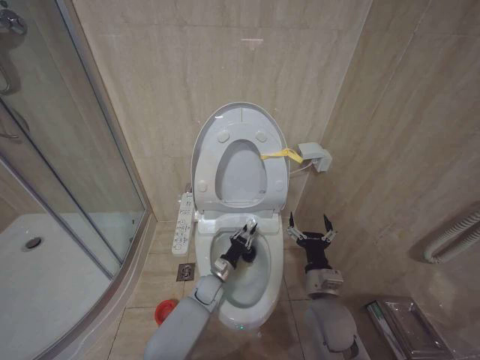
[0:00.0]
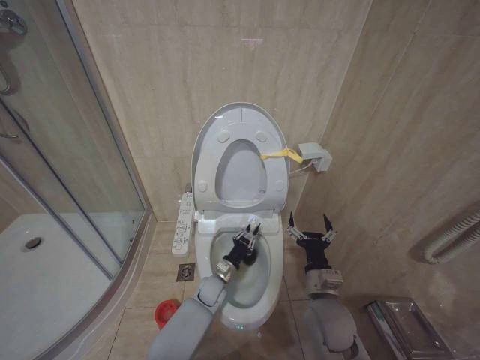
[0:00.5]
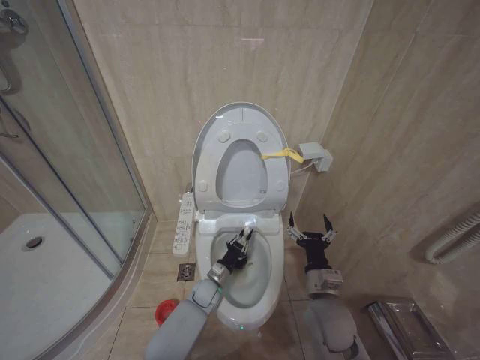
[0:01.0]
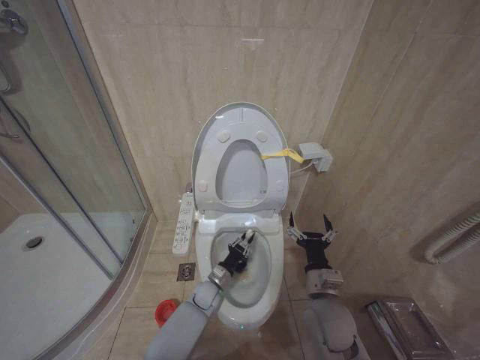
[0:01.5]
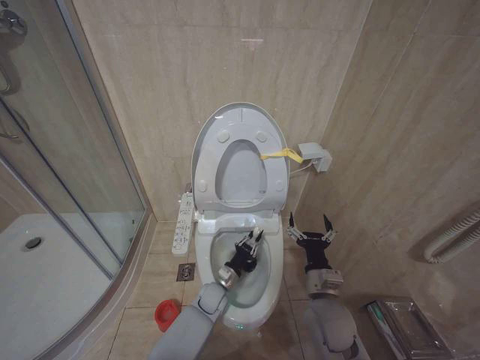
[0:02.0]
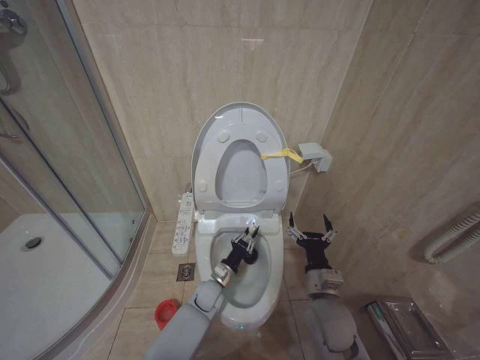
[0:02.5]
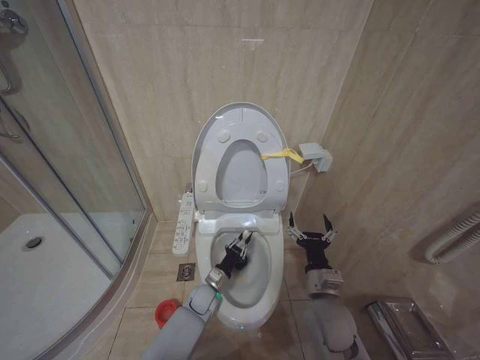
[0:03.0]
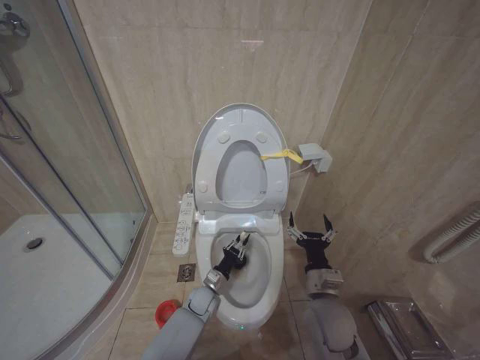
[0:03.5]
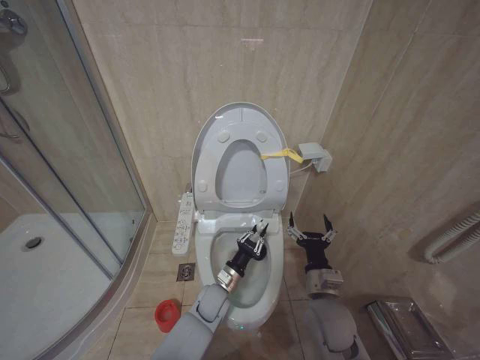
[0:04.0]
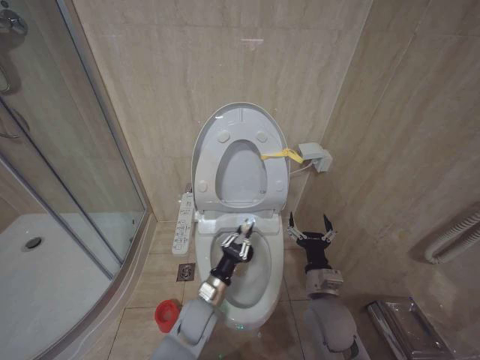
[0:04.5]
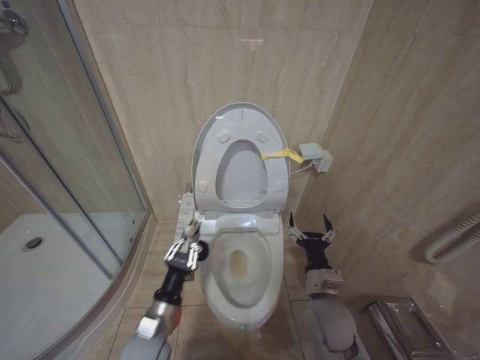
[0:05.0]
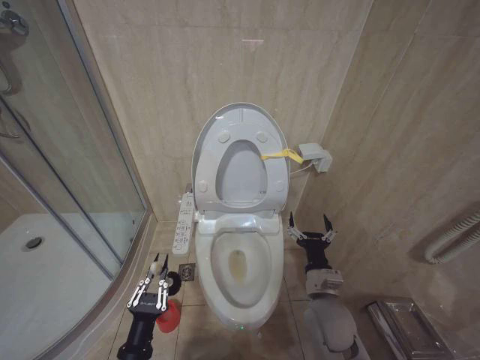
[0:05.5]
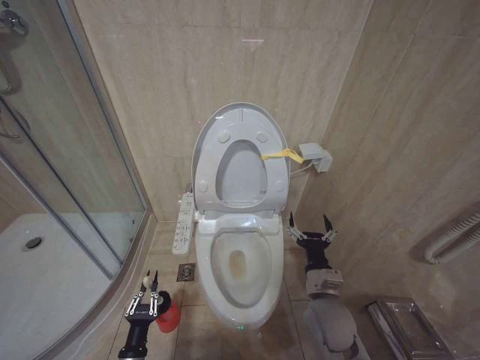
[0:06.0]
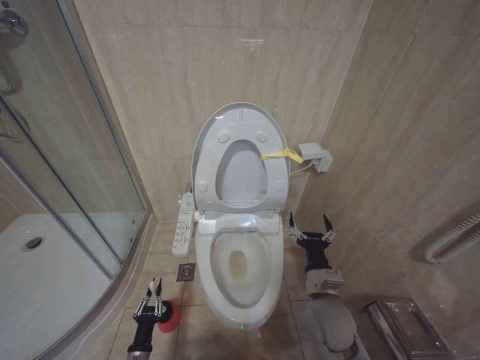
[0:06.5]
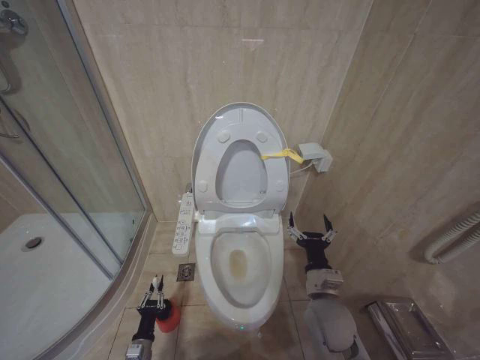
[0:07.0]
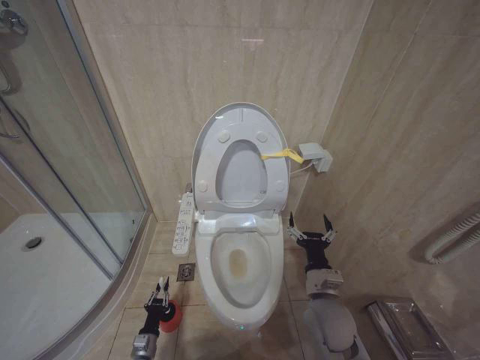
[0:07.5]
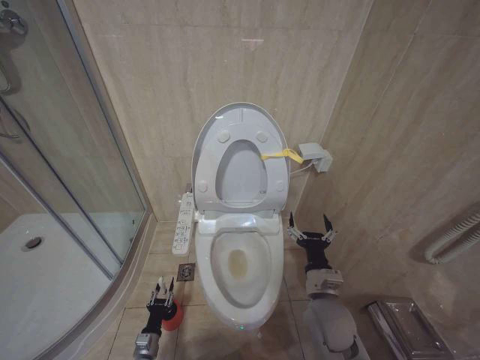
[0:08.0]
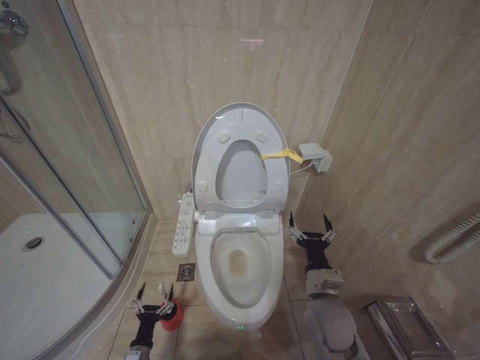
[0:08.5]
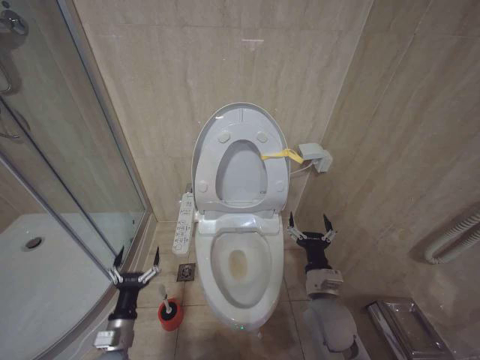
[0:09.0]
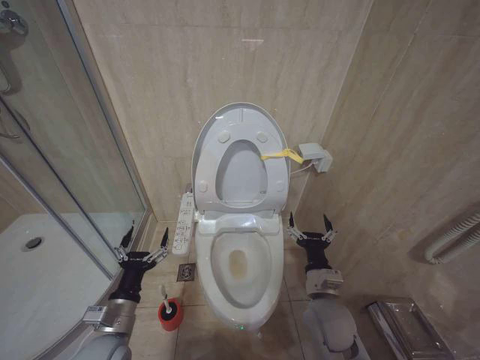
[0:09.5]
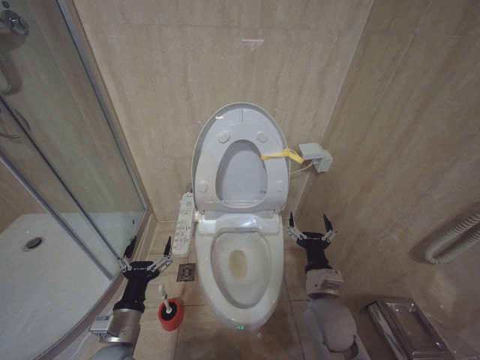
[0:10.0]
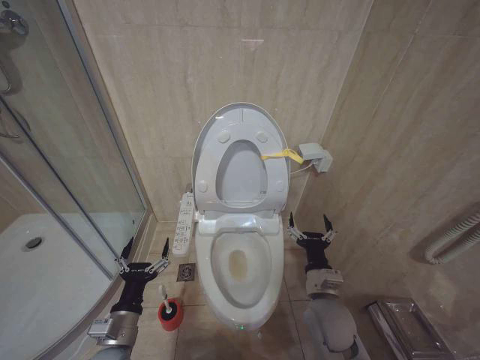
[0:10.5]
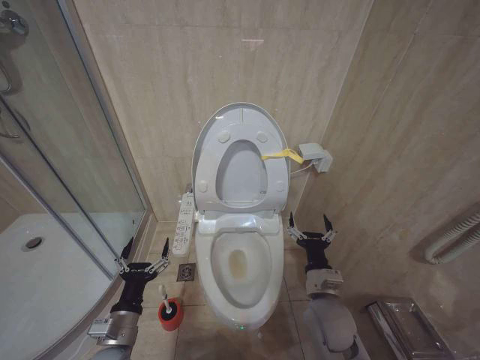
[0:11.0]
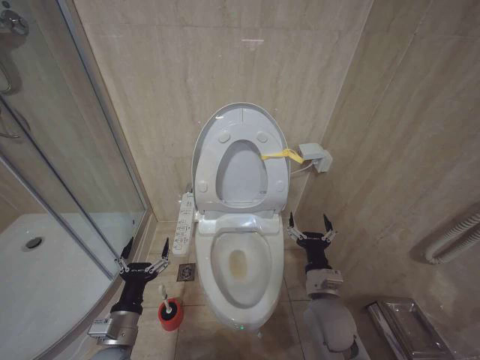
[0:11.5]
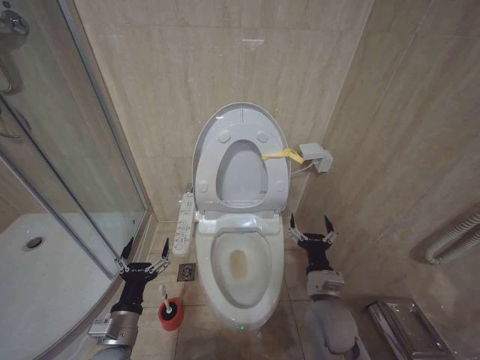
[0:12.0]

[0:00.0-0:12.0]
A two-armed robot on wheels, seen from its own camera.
Task of the whole recording: Open the toilet lid, clean the toilet bowl with a toilet brush, close the toilet lid, and flush.
0.0 to 2.0 s: The grippers make only small movements.
4.0 to 6.0 s: The left gripper moves to the left and backward, some 30 cm.
6.0 to 8.0 s: The left gripper heads downward and forward, covering about 20 cm.
8.0 to 10.0 s: The left gripper moves upward, about 30 cm, and opens up.
10.0 to 12.0 s: Both grippers stay put.

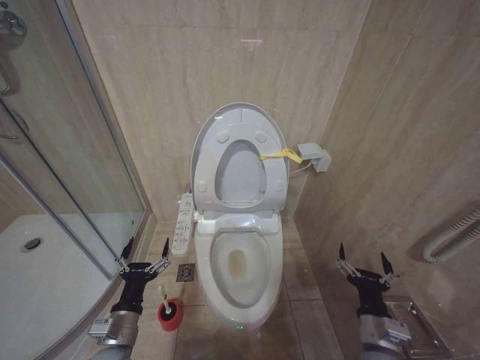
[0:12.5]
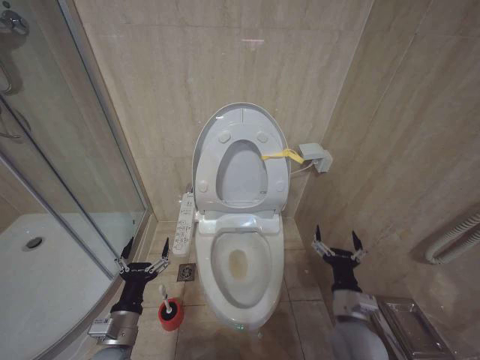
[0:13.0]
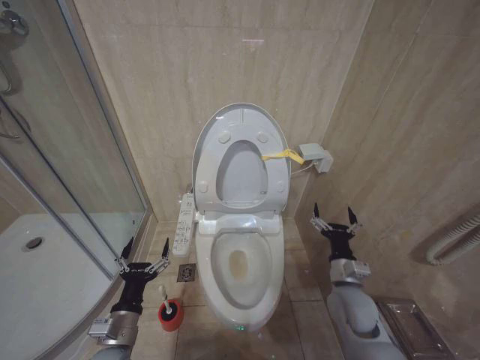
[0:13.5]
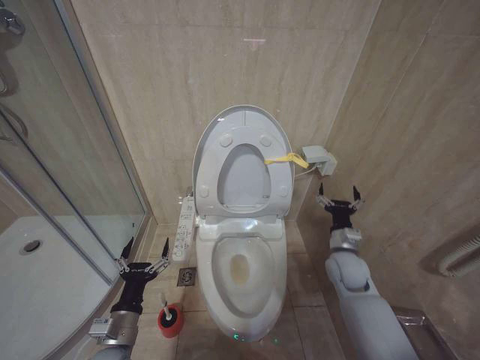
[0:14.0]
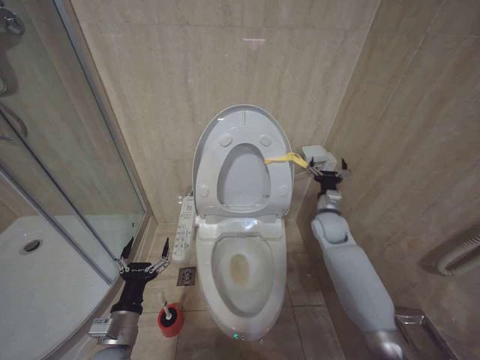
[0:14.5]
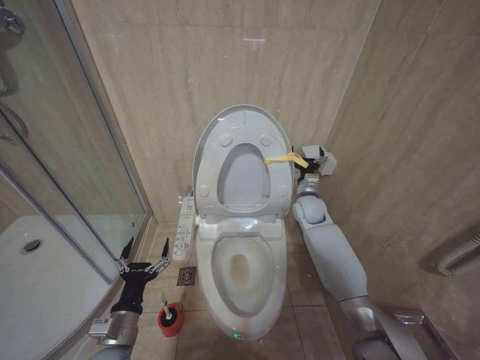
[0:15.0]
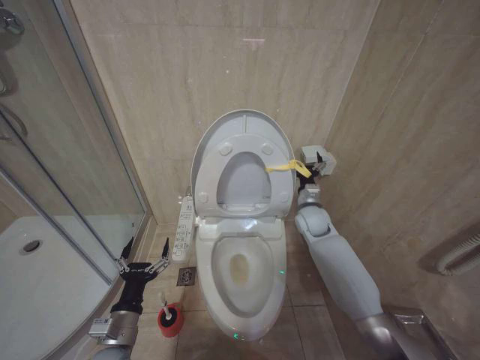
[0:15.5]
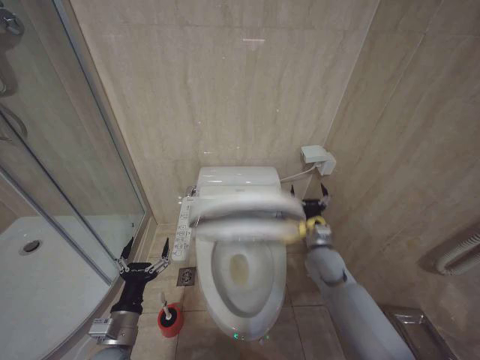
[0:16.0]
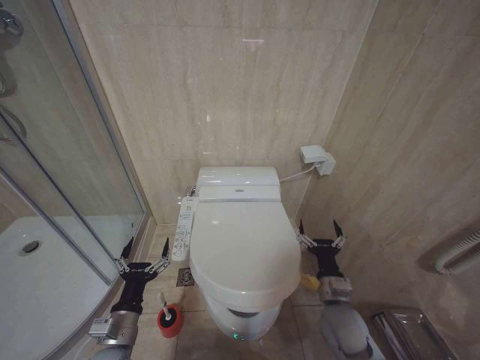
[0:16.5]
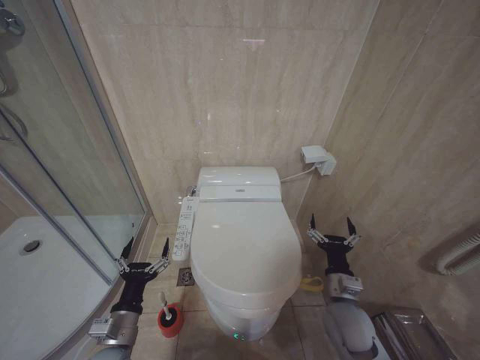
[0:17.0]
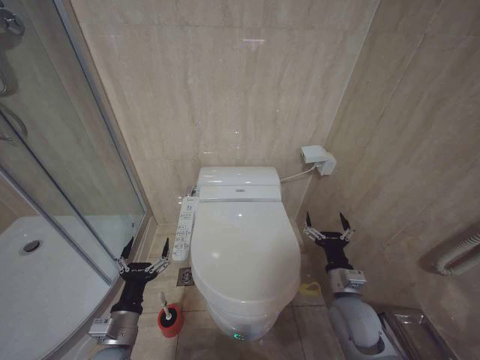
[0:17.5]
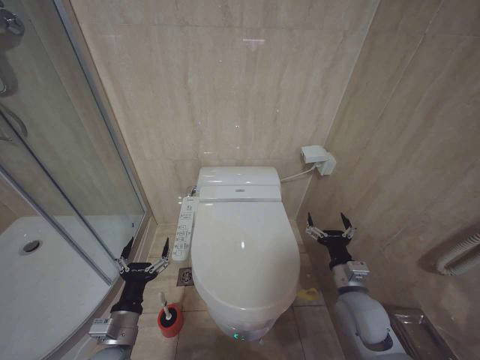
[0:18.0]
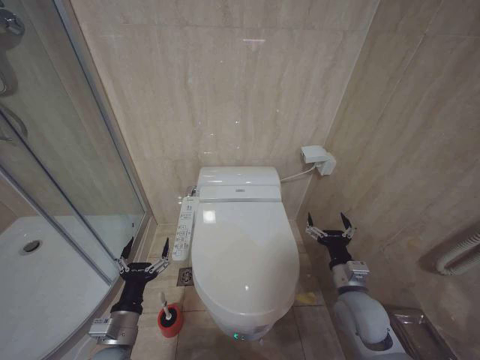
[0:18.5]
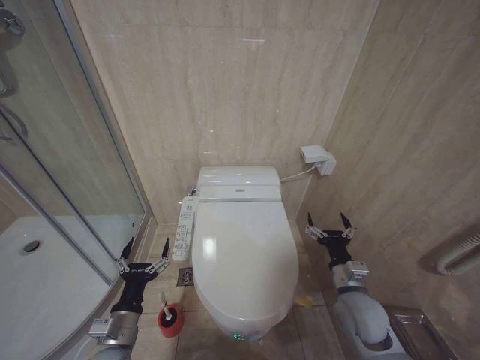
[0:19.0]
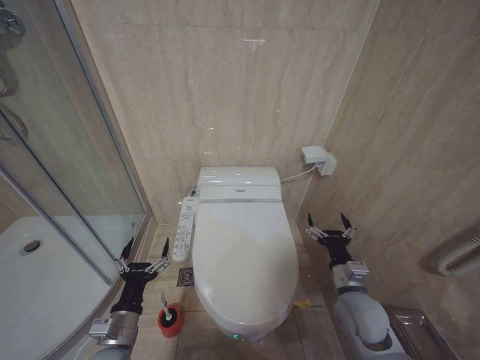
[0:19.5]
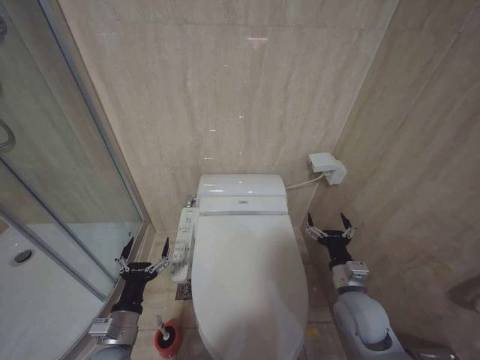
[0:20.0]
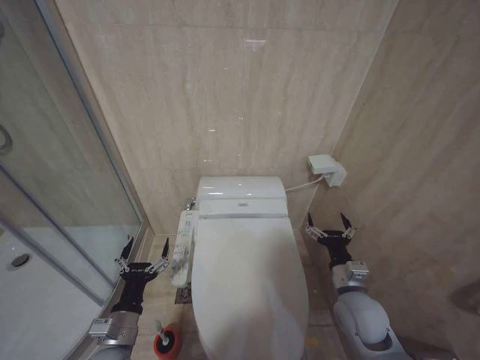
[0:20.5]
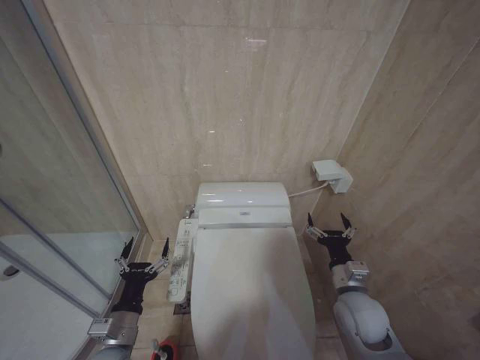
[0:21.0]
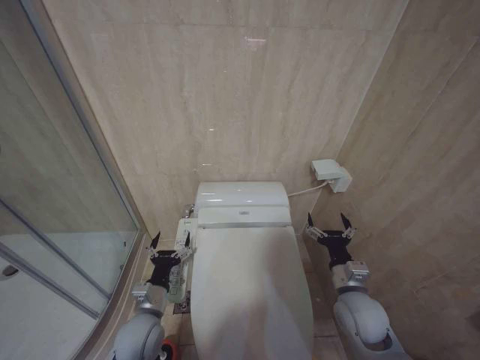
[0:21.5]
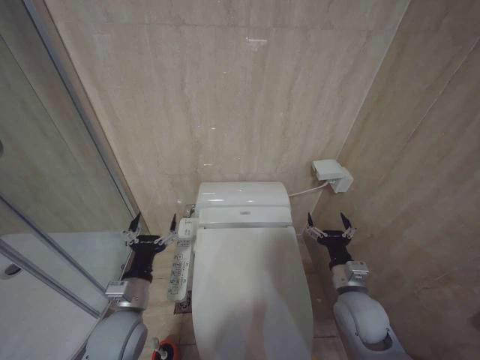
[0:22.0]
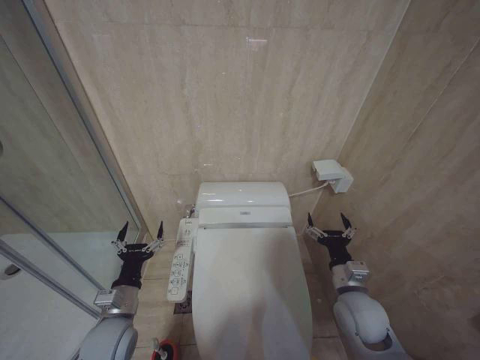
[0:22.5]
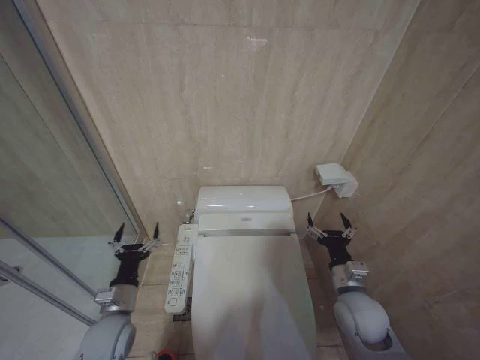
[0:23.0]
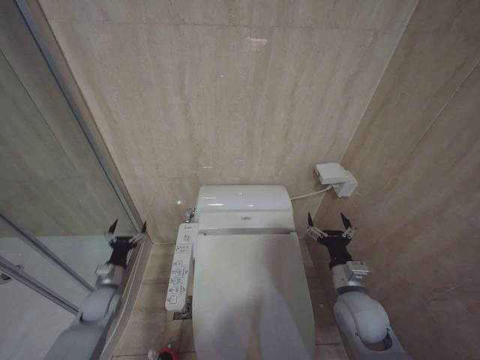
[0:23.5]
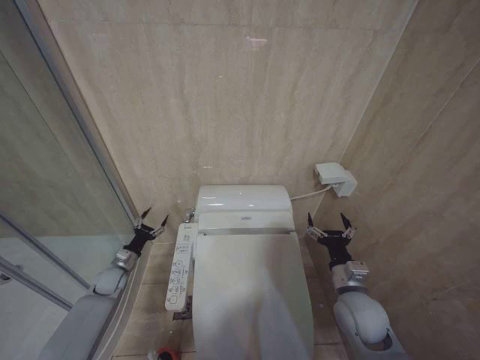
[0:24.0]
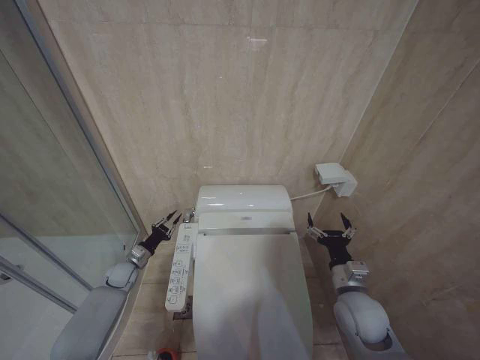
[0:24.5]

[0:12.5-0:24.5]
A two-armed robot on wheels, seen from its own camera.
Task of the whole recording: Open the toilet lid, clean the toilet bowl with a toilet brush, close the toilet lid, and flush.
12.5 to 14.5 s: The right gripper goes about 30 cm forward.
14.5 to 16.5 s: The right gripper shifts approximately 20 cm backward and downward.
16.5 to 18.5 s: There are only small adjustments of the grippers.
18.5 to 20.5 s: Both grippers stay about where they are.
20.5 to 22.5 s: The left gripper goes approximately 5 cm forward.
22.5 to 24.5 s: The left gripper goes about 25 cm forward, downward and to the left, and closes.

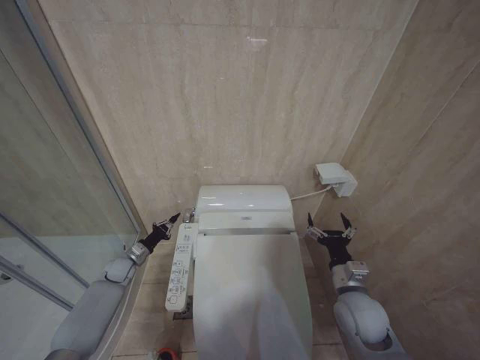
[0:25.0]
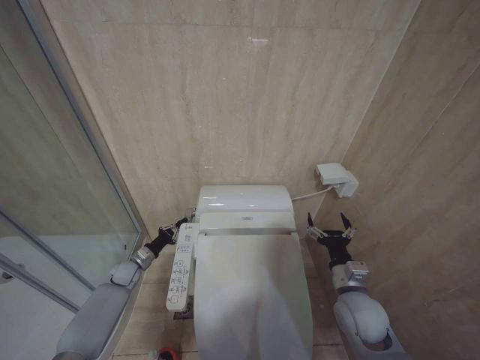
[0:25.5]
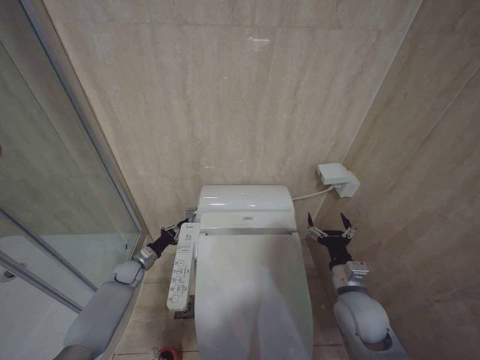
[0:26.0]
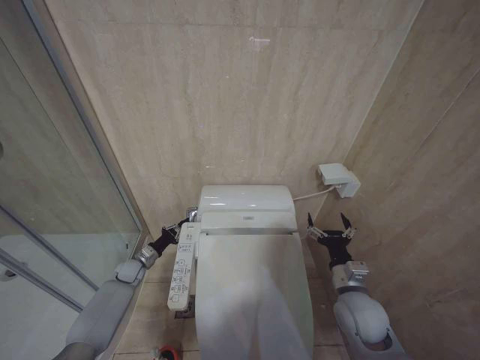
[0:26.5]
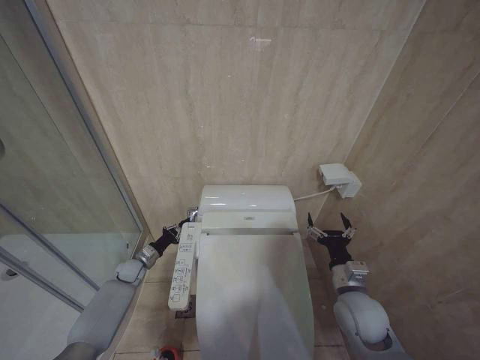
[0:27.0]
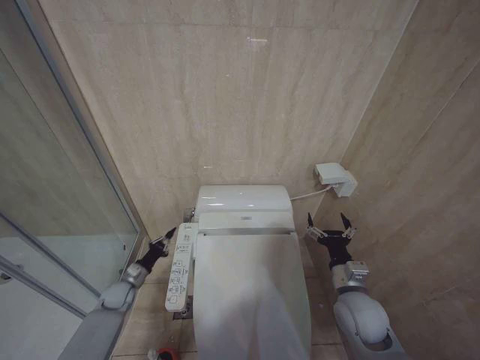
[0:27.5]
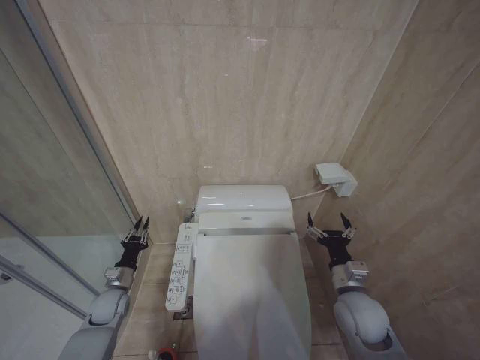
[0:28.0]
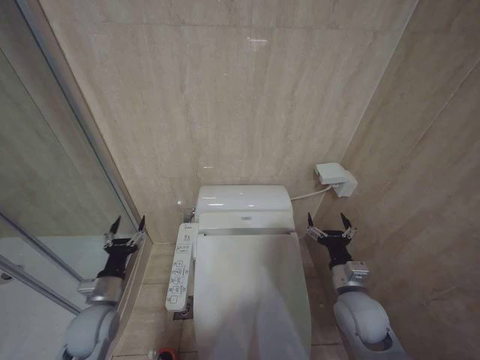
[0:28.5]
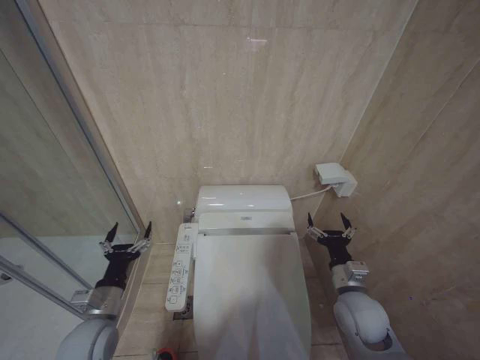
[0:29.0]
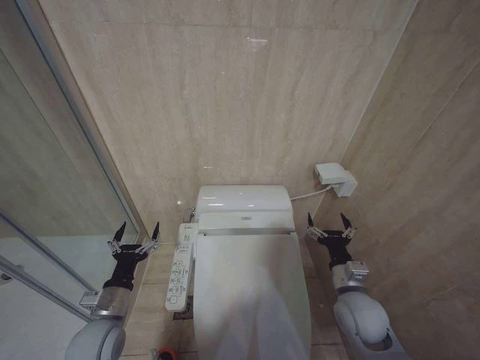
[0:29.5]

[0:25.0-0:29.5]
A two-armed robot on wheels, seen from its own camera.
Task of the whole recording: Open the toilet lid, clean the toilet bowl with a toilet brush, close the toilet lid, and flush.
25.0 to 27.0 s: The grippers make only small movements.
27.0 to 29.5 s: The left gripper shifts some 25 cm backward and upward, and opens its fingers.
